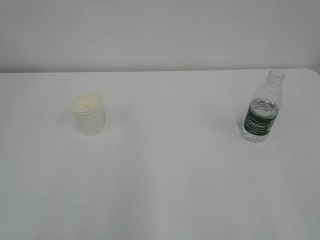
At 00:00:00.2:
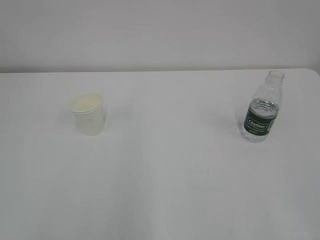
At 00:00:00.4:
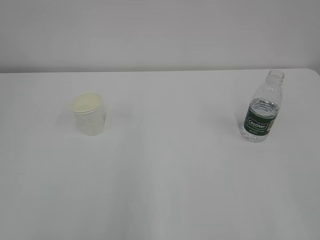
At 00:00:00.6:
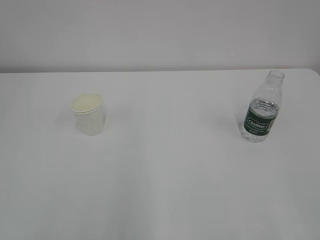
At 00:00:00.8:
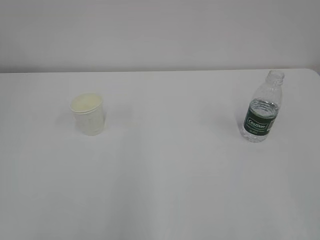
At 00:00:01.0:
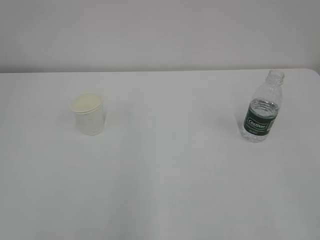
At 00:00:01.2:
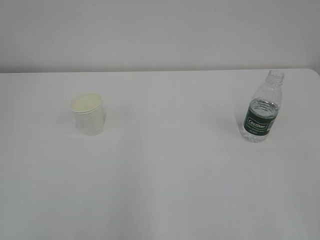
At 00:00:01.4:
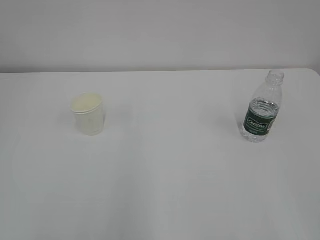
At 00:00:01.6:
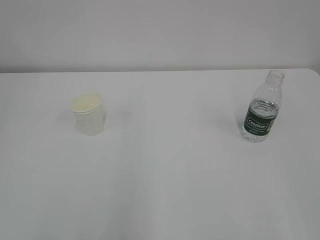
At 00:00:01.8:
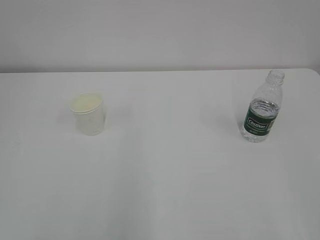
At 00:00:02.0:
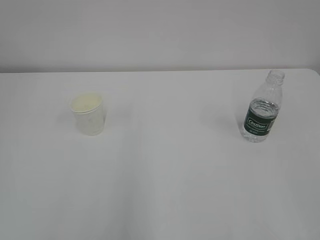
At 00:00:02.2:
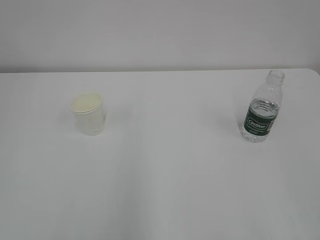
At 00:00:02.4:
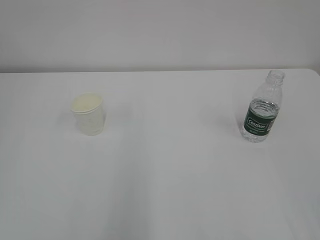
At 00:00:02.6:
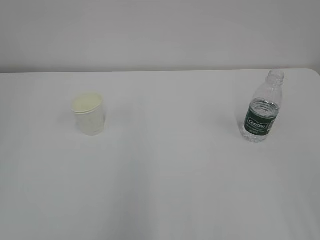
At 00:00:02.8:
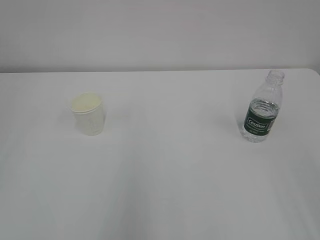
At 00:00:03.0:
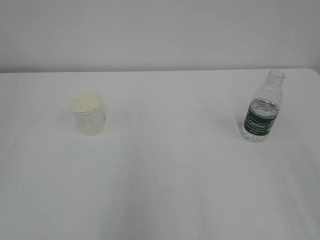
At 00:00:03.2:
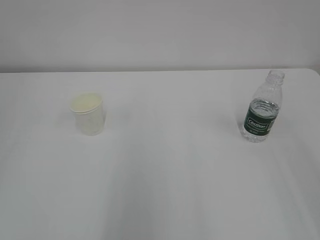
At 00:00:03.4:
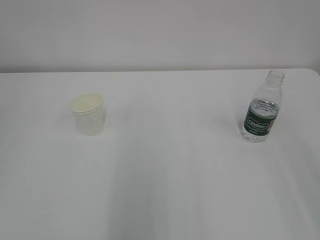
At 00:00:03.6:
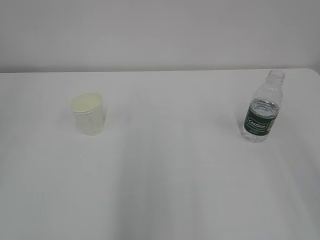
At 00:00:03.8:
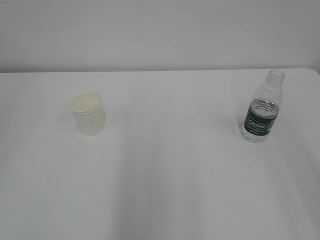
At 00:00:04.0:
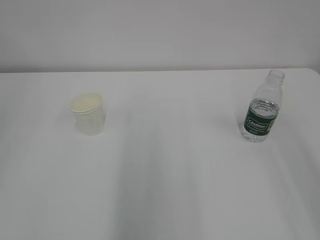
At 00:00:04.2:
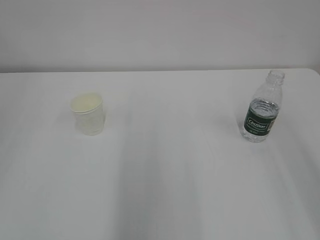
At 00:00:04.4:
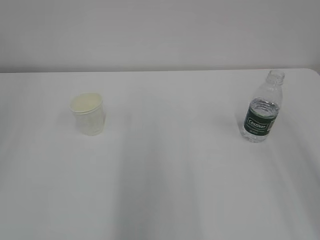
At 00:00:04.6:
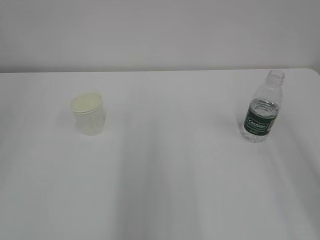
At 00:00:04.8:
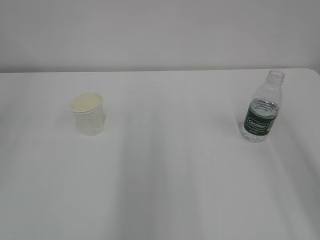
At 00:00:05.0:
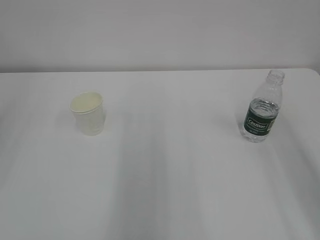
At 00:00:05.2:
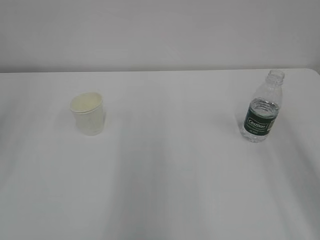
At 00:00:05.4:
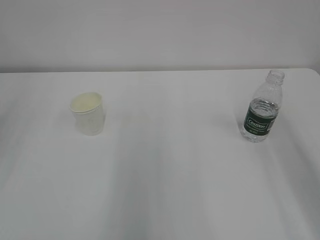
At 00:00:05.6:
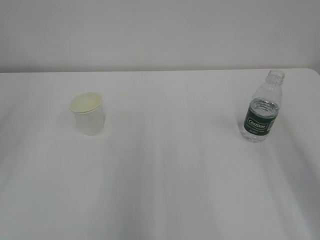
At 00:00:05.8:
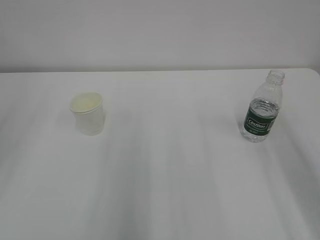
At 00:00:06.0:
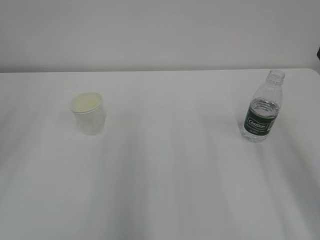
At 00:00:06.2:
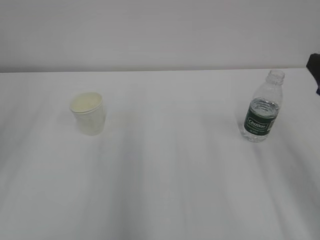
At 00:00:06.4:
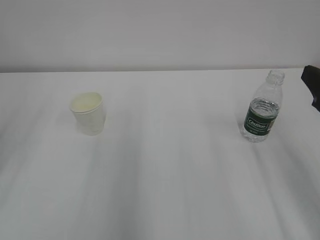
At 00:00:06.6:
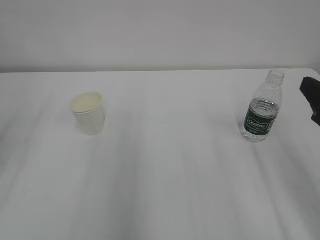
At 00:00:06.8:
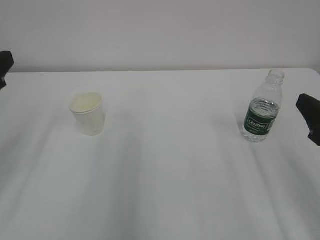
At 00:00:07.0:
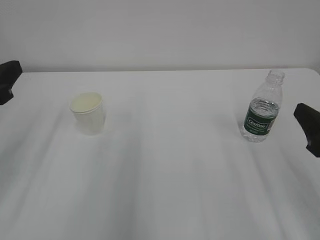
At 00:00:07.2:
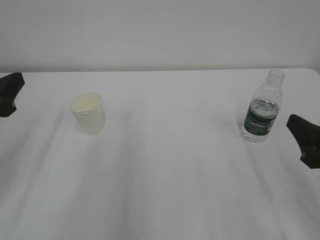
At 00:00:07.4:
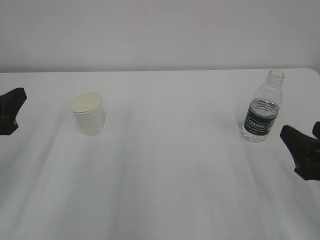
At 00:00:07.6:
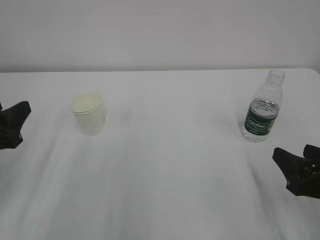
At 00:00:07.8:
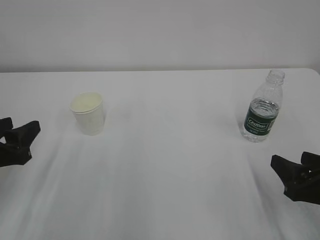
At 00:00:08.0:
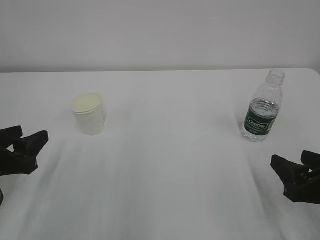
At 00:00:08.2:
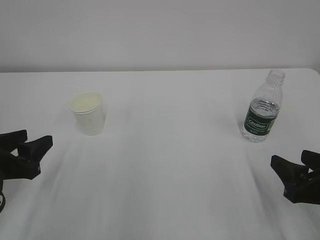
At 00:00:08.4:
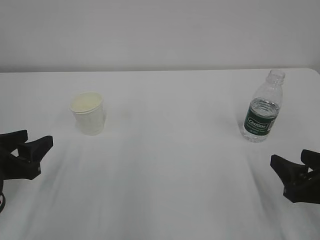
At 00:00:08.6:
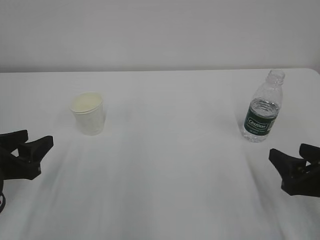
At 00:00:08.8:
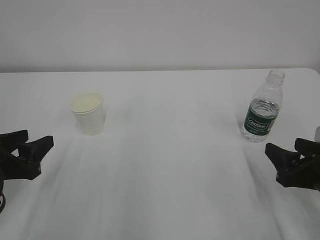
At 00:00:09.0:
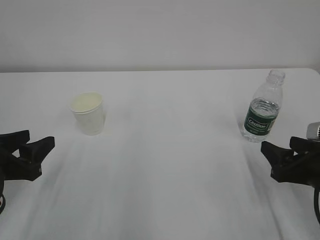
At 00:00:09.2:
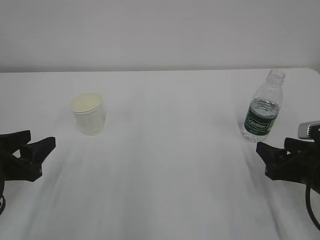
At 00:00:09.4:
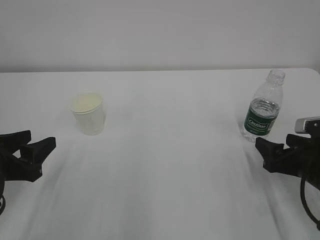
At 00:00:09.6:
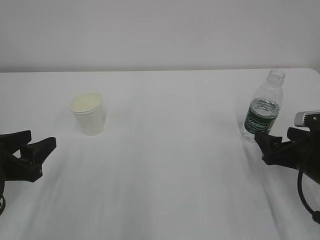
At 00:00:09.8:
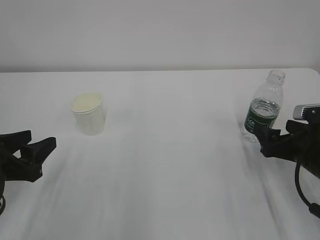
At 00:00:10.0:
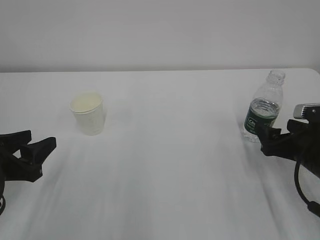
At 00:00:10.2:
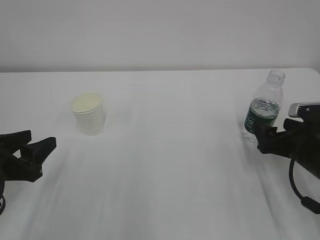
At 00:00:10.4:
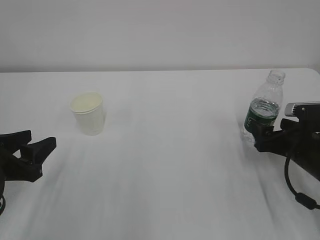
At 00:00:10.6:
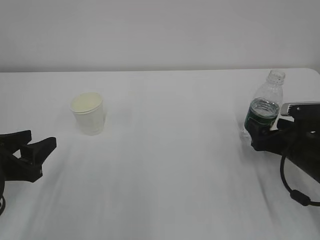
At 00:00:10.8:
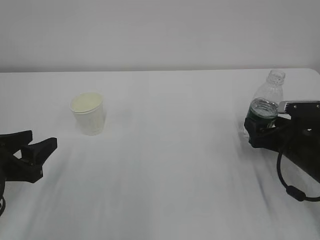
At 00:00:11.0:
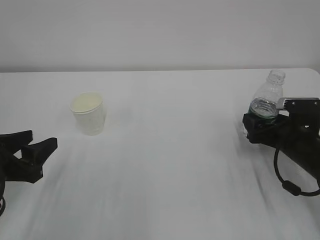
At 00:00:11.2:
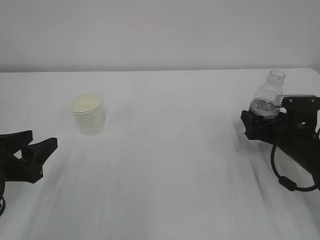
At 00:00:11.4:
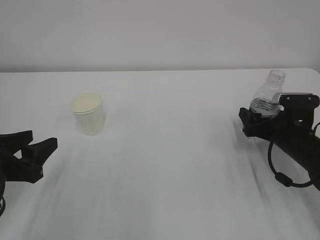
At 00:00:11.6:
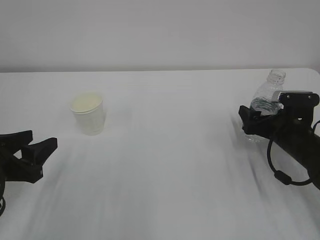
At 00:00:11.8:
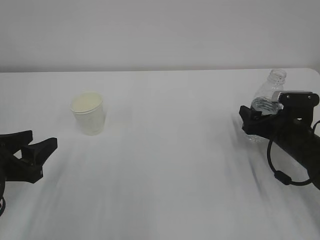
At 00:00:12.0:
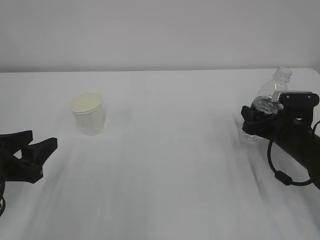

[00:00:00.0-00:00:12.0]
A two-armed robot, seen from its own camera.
00:00:06.0 to 00:00:07.6: Both grippers move downward, some 15 cm.
00:00:07.6 to 00:00:09.0: The grippers move only a little.
00:00:09.0 to 00:00:10.4: The right gripper heads forward, covering some 5 cm, and opens its fingers.
00:00:10.4 to 00:00:12.0: The right gripper is displaced forward by roughly 5 cm, and closes its fingers.

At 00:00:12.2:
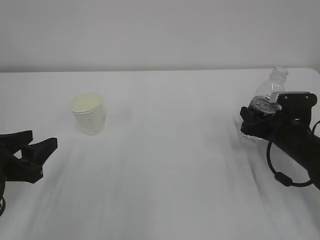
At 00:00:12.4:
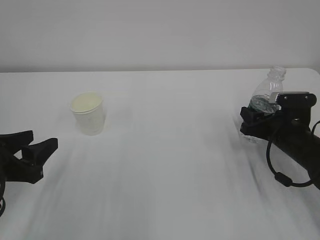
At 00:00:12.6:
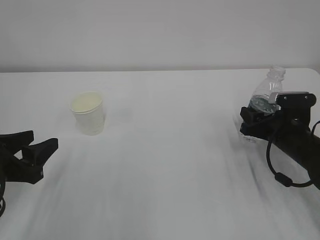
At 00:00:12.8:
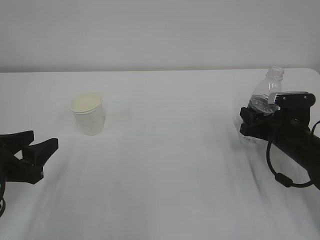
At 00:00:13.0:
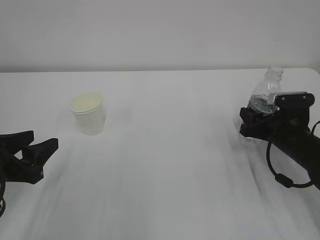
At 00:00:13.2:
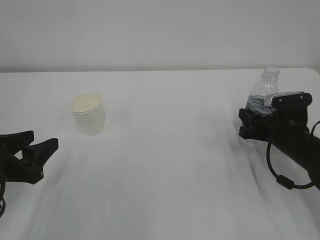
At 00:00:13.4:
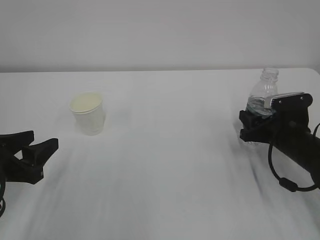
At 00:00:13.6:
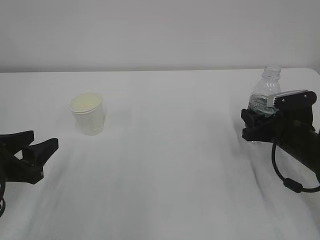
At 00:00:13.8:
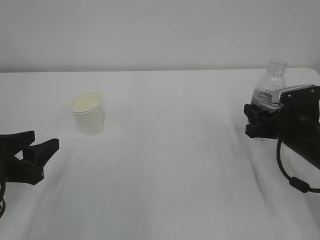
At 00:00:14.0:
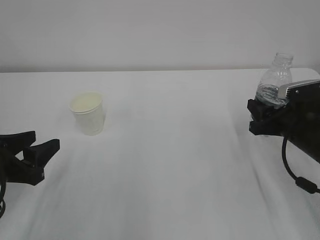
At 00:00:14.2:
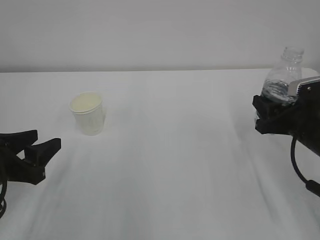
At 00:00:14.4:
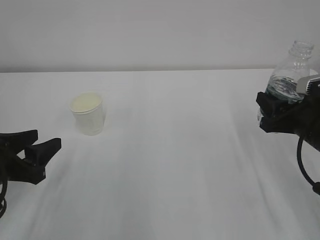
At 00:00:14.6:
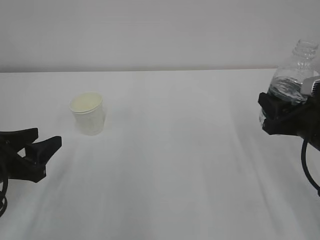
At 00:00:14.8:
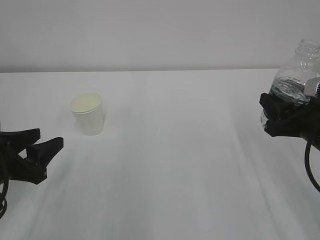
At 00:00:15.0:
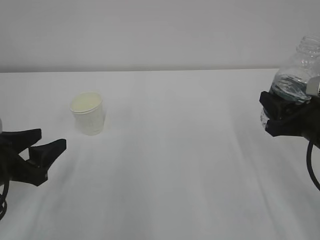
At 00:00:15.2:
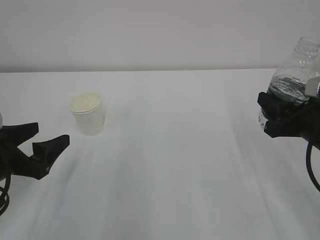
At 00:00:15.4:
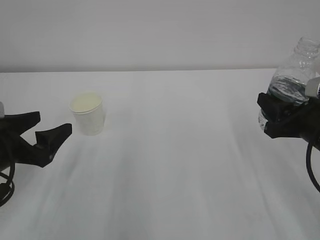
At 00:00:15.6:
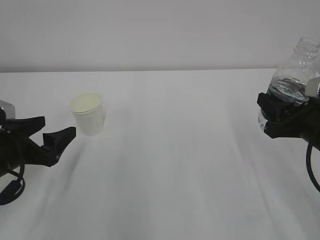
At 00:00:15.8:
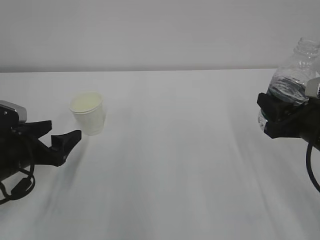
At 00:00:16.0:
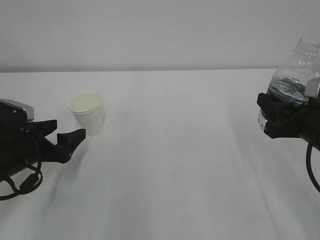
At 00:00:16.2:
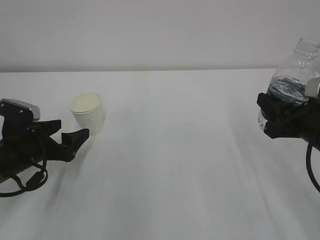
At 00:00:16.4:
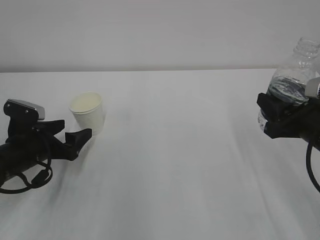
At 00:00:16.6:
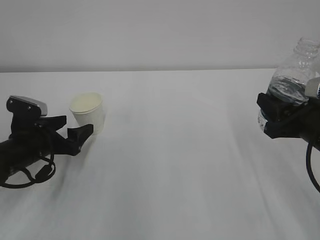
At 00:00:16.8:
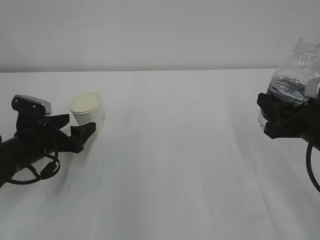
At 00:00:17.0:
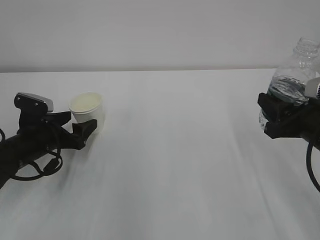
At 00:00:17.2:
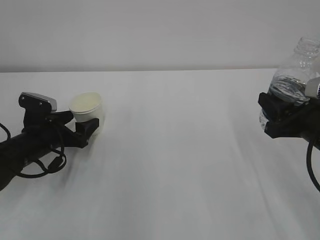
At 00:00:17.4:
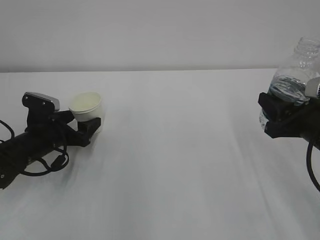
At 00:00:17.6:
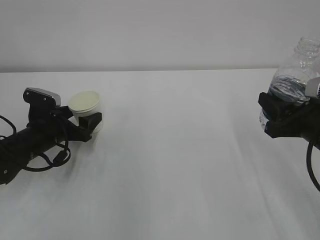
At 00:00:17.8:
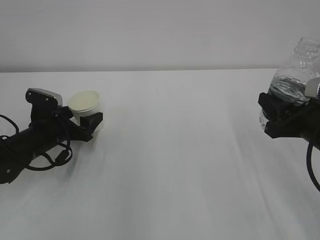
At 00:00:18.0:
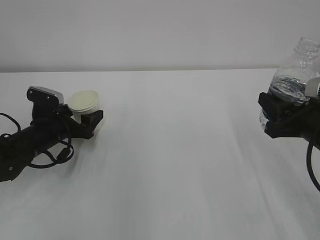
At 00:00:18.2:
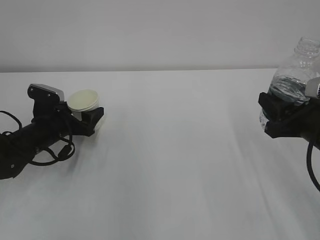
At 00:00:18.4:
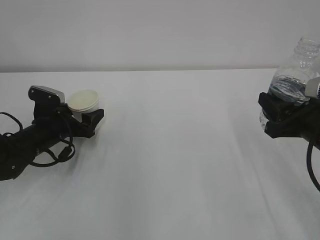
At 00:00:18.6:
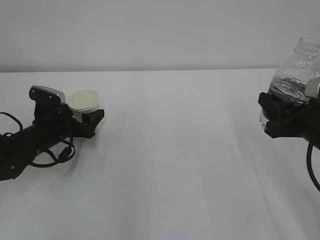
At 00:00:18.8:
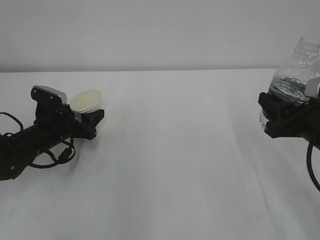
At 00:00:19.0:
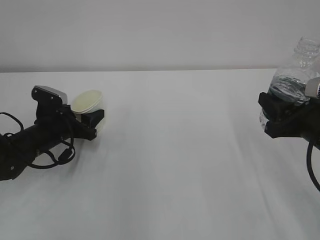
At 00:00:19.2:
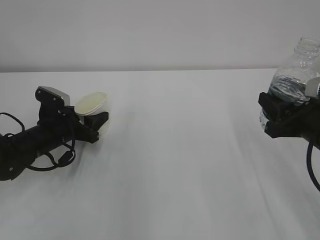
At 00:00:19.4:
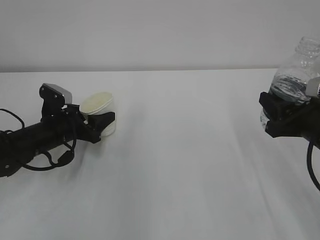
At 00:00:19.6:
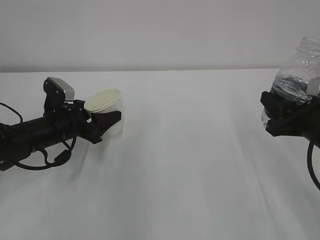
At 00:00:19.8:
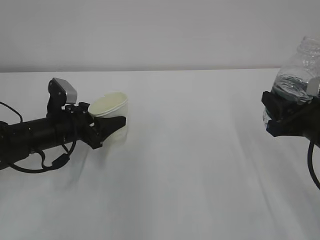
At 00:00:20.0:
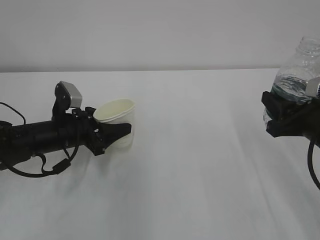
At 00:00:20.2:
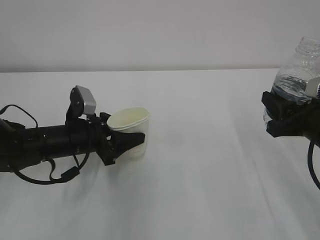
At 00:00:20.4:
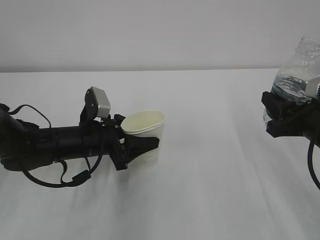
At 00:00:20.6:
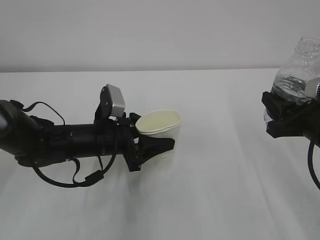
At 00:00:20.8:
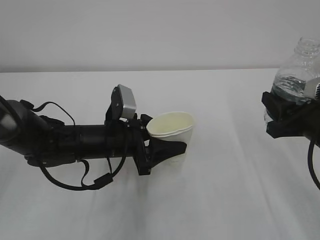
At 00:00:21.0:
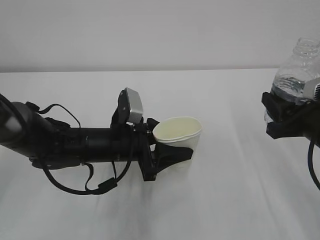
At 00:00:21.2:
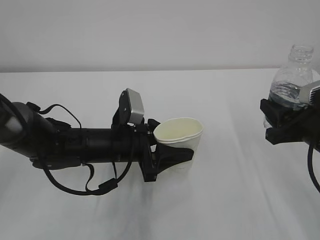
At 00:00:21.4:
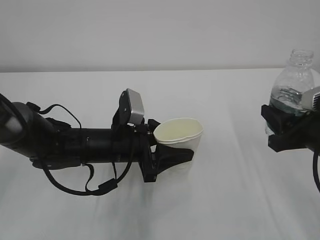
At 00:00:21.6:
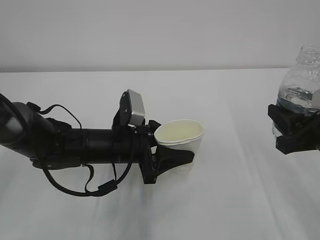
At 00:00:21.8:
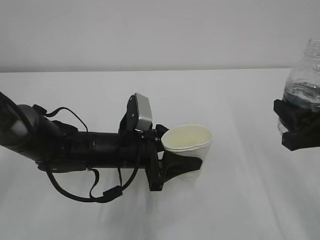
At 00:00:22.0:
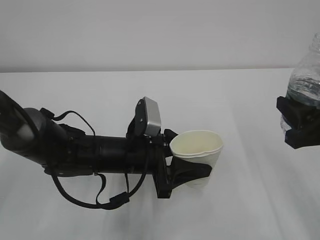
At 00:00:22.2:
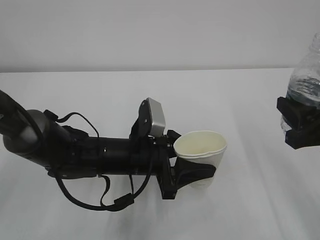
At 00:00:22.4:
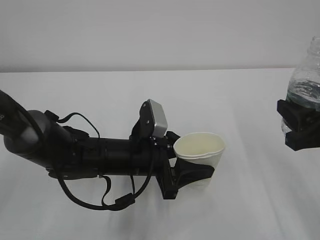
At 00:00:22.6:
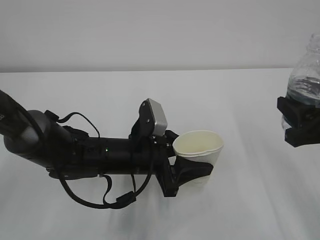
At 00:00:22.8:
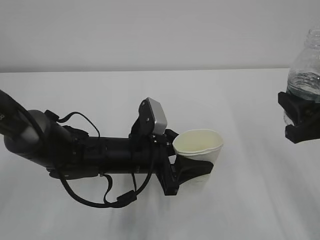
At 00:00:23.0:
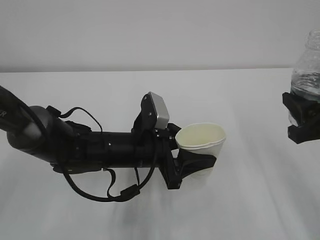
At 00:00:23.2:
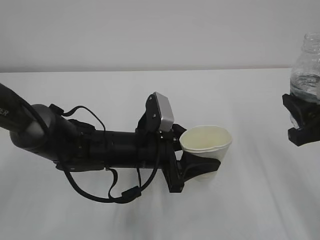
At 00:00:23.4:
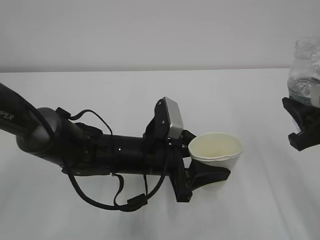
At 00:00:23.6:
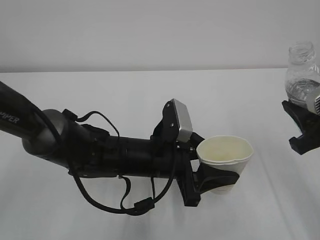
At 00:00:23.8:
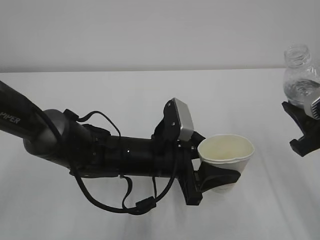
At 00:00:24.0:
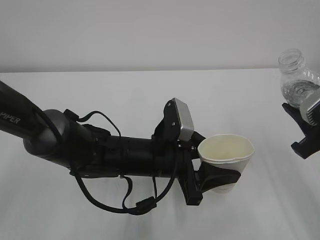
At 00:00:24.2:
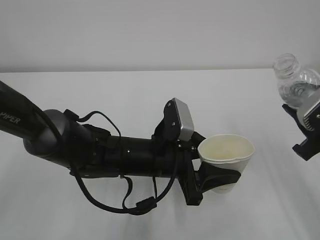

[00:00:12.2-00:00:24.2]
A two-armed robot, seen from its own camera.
00:00:12.2 to 00:00:13.8: There are only small adjustments of the grippers.
00:00:13.8 to 00:00:15.2: The left gripper opens up; the right gripper travels upward and backward by some 10 cm.
00:00:15.2 to 00:00:16.6: The left gripper travels forward and downward by about 10 cm.
00:00:16.6 to 00:00:18.2: The left gripper travels forward by about 5 cm.
00:00:18.2 to 00:00:19.8: The left gripper closes up.
00:00:19.8 to 00:00:21.2: The left gripper is displaced to the right by about 10 cm.
00:00:21.2 to 00:00:22.6: The right gripper moves some 5 cm.
